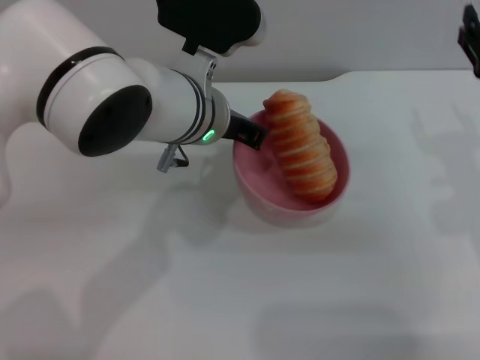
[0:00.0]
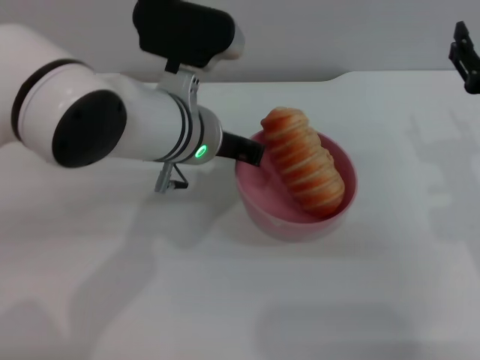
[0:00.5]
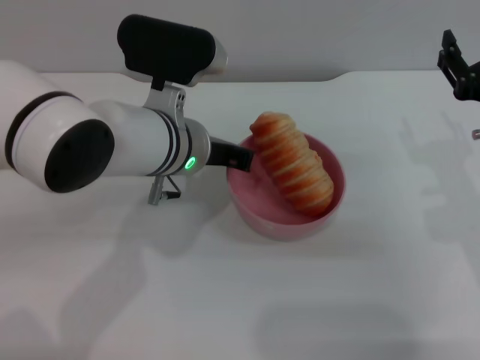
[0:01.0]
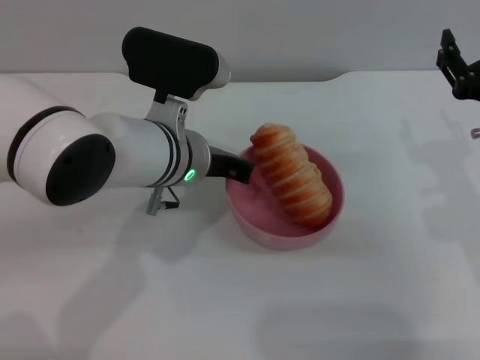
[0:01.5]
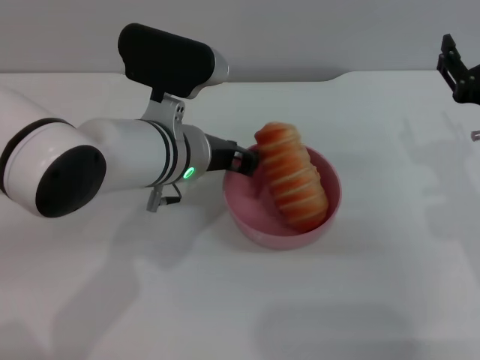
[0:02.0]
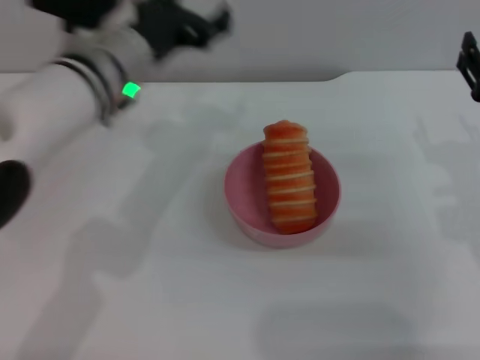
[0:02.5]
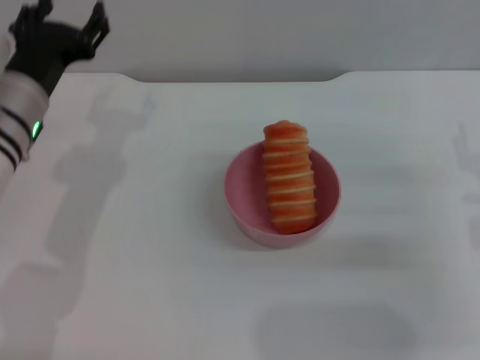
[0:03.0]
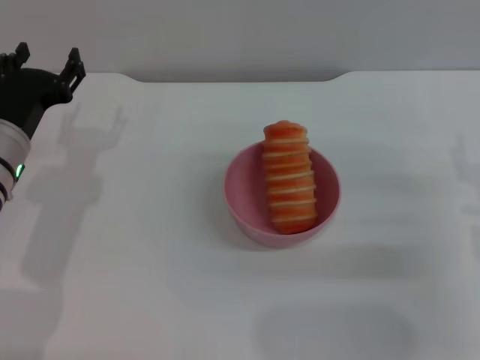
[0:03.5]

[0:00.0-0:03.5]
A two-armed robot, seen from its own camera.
Task of the whole recording: put the bread into the pink bowl and pour it out repeatedly.
Step, 0:01.0 to 0:02.0: Place the bowl on the table.
0:02.0 to 0:03.5: The right gripper shifts by about 5 cm; the left gripper moves to the left, roughly 15 cm, and opens its fingers.

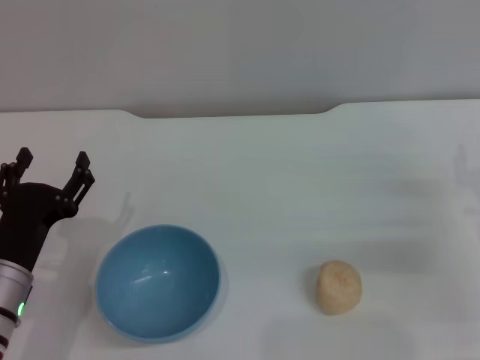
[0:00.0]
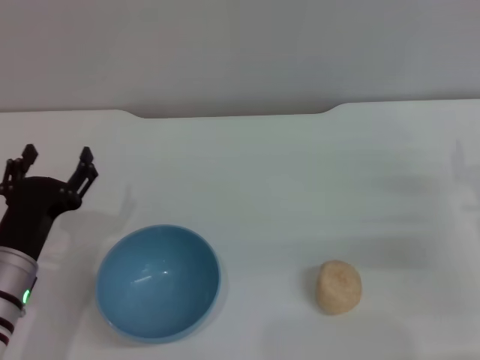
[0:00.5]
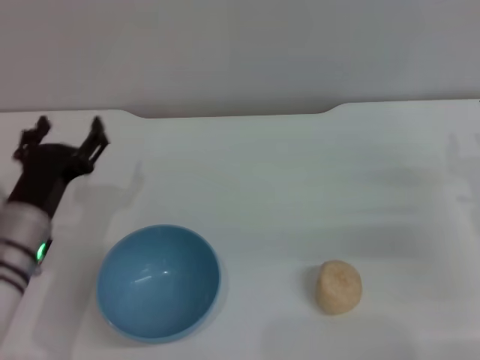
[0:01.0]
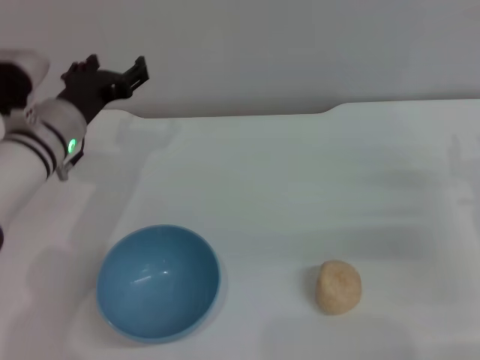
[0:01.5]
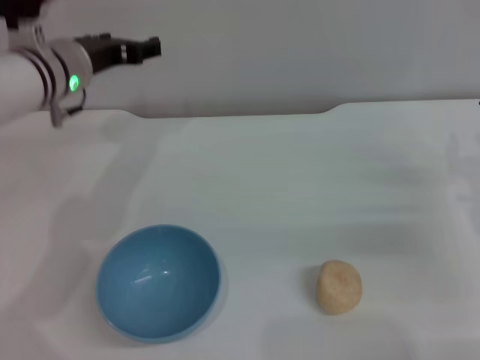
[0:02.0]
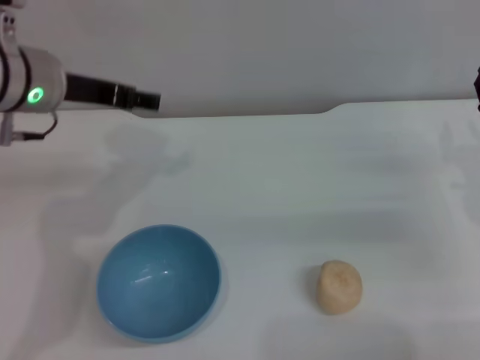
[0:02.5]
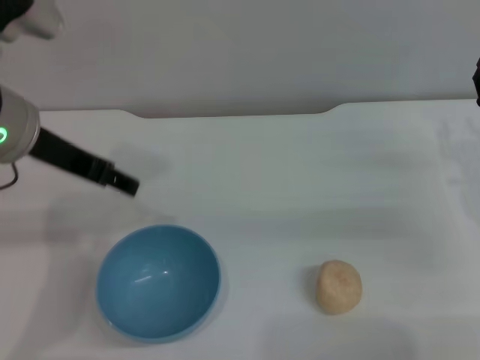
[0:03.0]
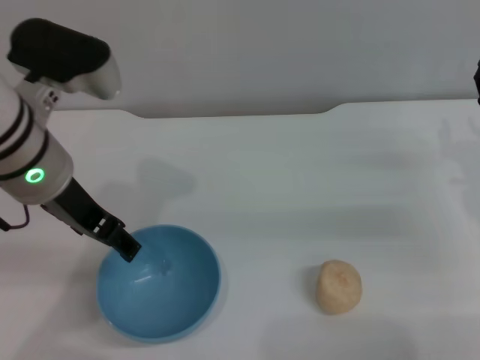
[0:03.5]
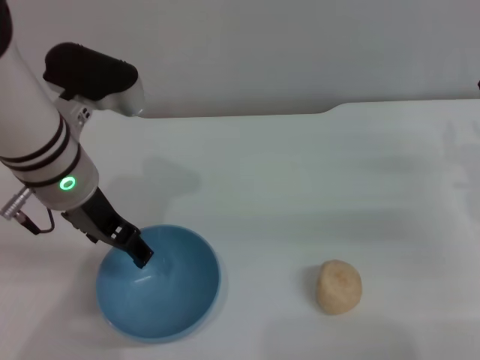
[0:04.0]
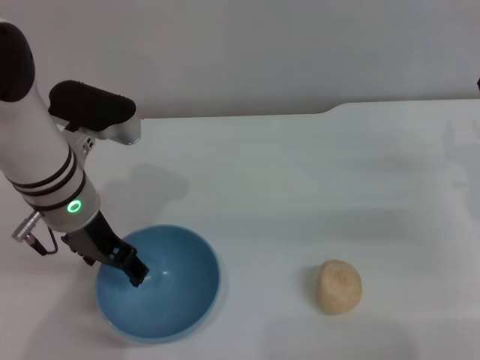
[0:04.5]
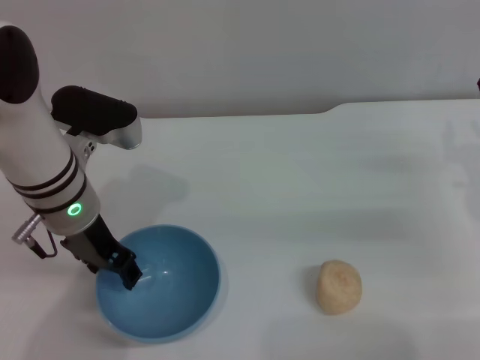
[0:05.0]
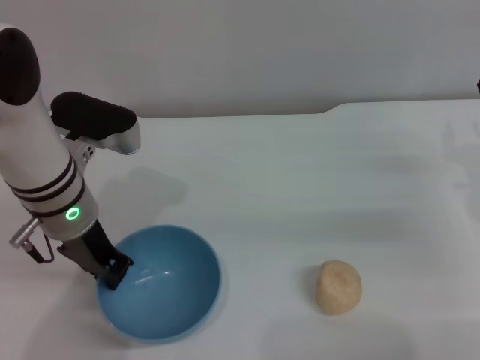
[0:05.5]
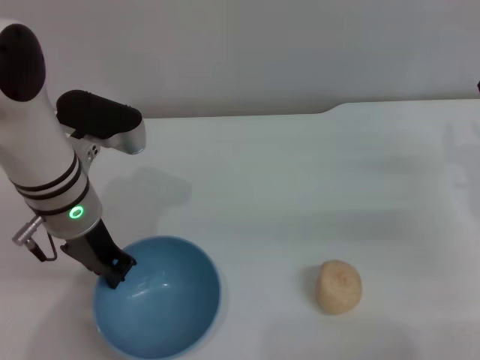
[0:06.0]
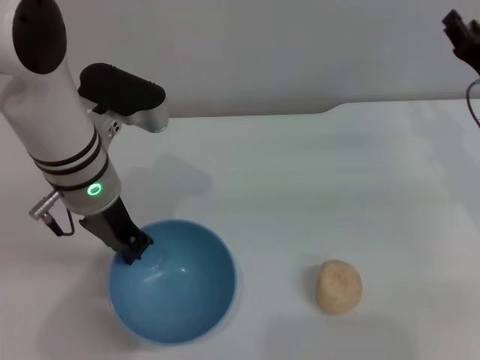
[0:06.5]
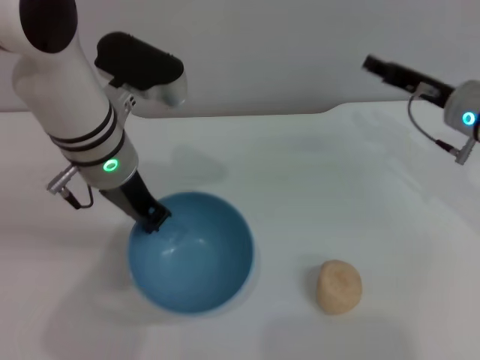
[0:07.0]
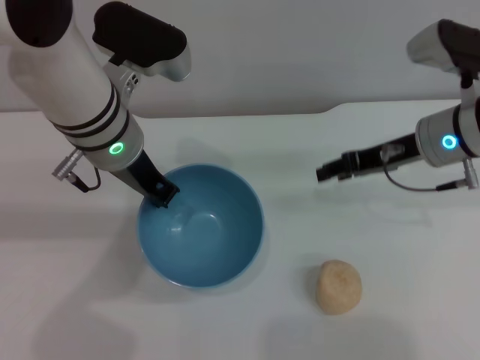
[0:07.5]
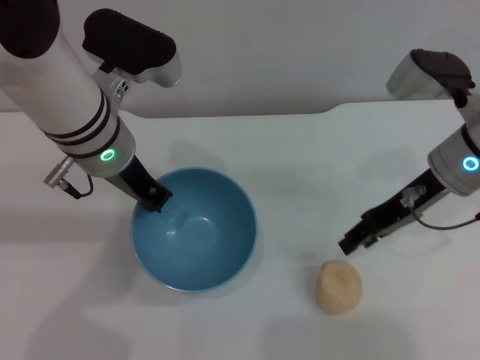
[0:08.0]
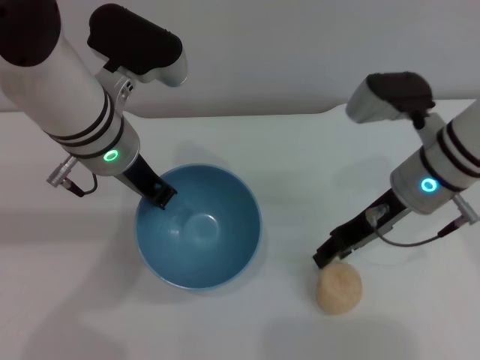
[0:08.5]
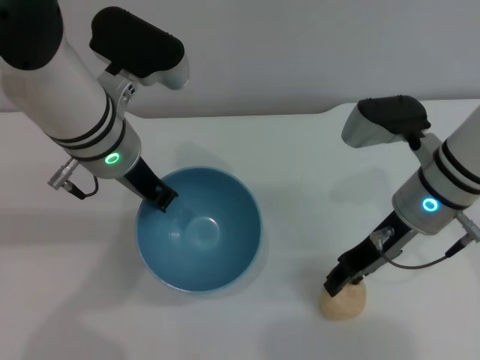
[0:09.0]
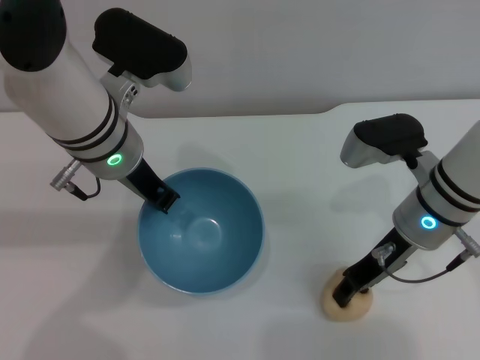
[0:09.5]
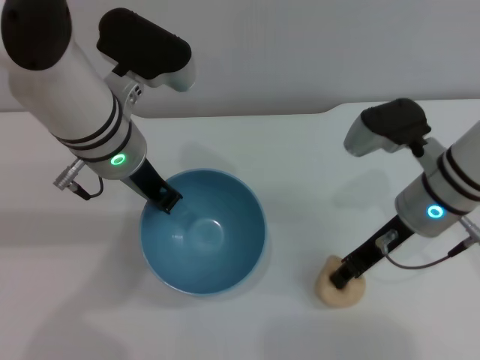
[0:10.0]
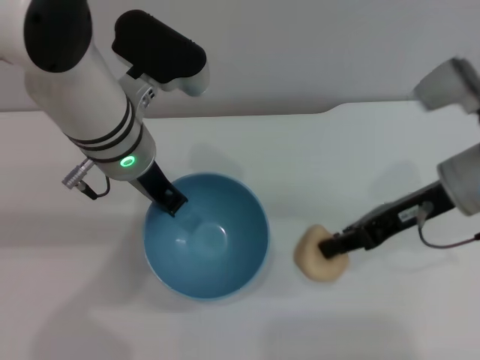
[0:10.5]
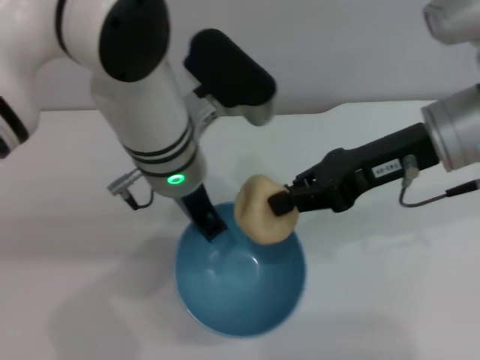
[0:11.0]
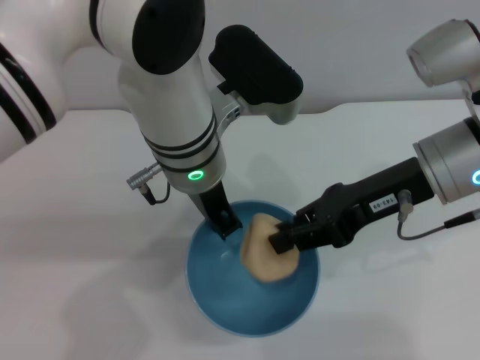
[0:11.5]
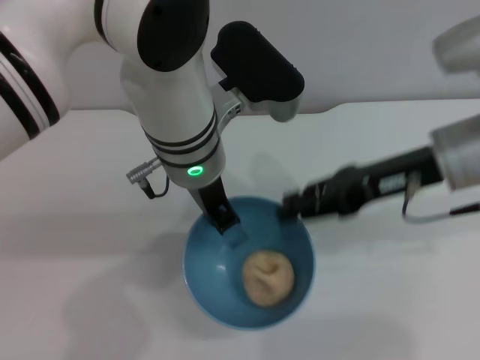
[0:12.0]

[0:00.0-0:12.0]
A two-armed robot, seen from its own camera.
Task of the whole recording: put the egg yolk pastry into the blue bowl and pour it out repeatedly.
Step, 0:00.0 to 0:06.5: Pick up the bowl with the left gripper.
Step, 0:07.0 to 0:10.0: Pick up the egg yolk pastry with the right gripper.
Step, 0:11.0 to 0:12.0: Place the egg yolk pastry into the bowl.
0:00.0 to 0:02.0: The left gripper is displaced forward and upward by about 25 cm.
0:02.0 to 0:04.0: The left gripper moves backward, roughly 10 cm.
0:04.0 to 0:06.0: The left gripper closes up.
0:06.0 to 0:08.0: The left gripper is displaced upward by about 5 cm; the right gripper is displaced to the left and upward by some 10 cm.
0:08.0 to 0:10.0: The right gripper closes its fingers.
0:10.0 to 0:12.0: The left gripper travels to the right by some 10 cm. Meanwhile the right gripper shifts about 5 cm upward.

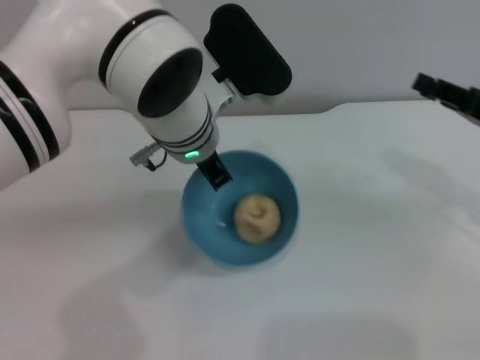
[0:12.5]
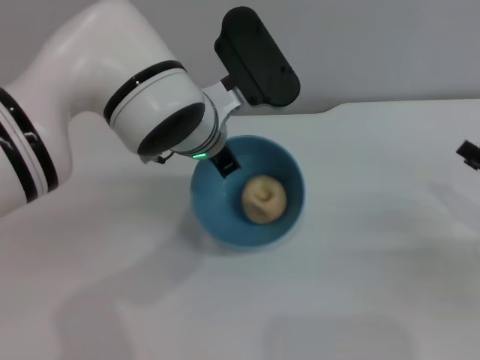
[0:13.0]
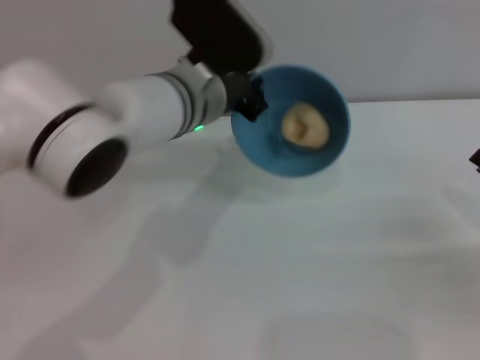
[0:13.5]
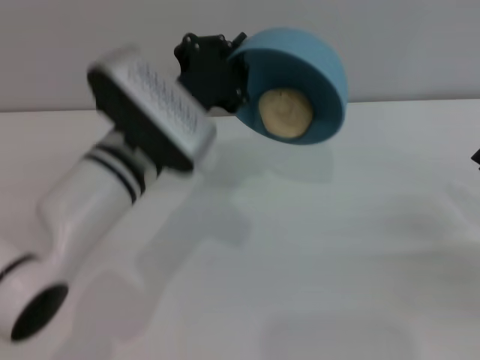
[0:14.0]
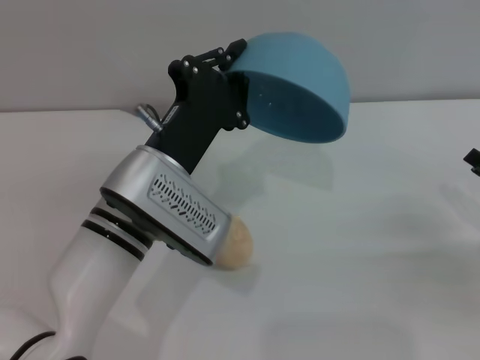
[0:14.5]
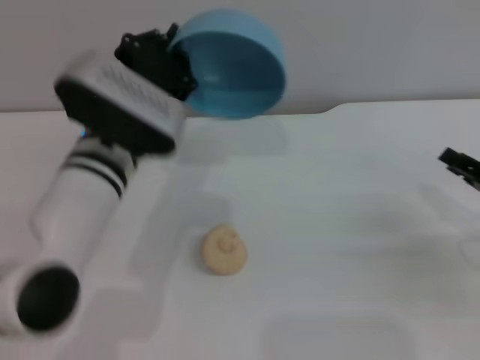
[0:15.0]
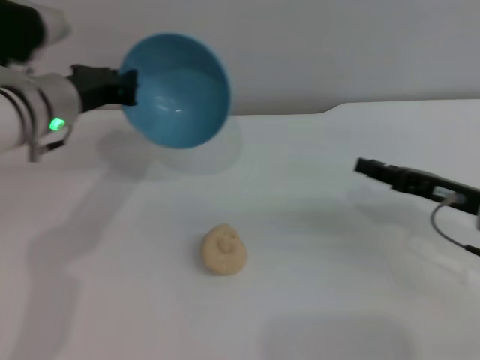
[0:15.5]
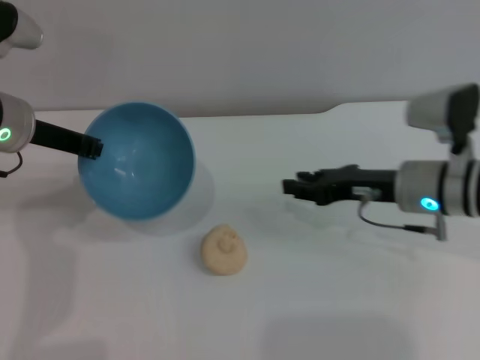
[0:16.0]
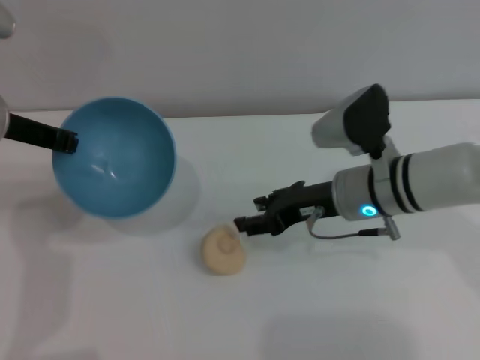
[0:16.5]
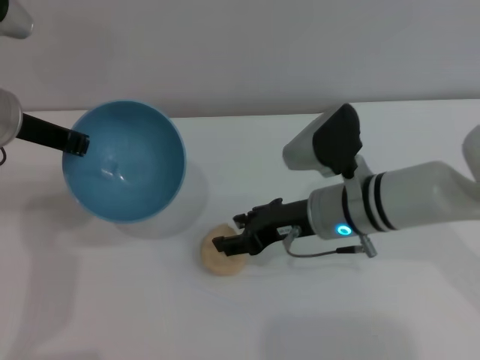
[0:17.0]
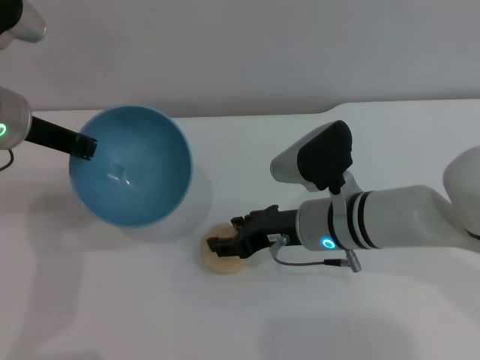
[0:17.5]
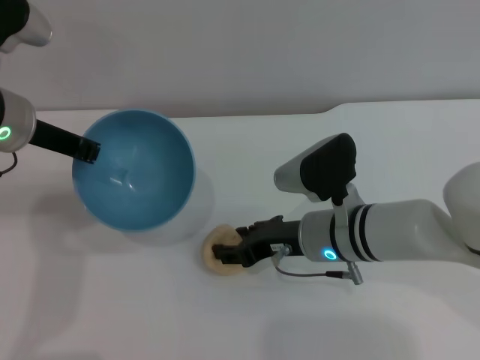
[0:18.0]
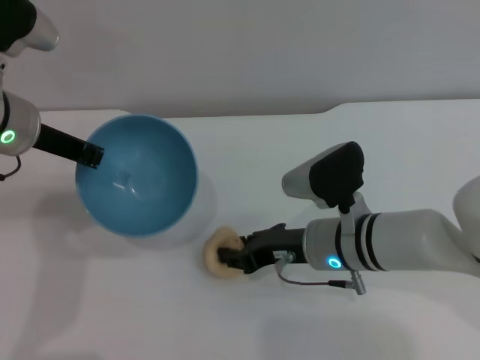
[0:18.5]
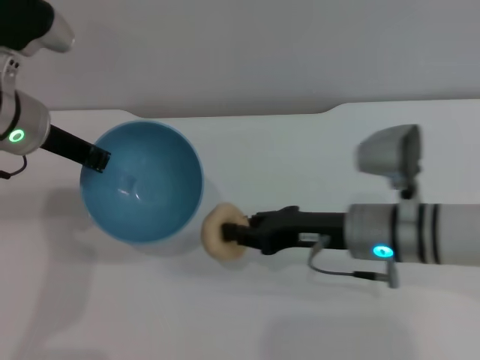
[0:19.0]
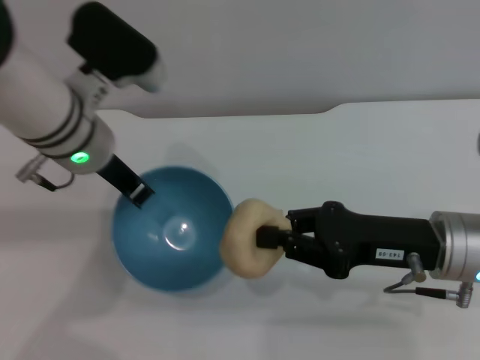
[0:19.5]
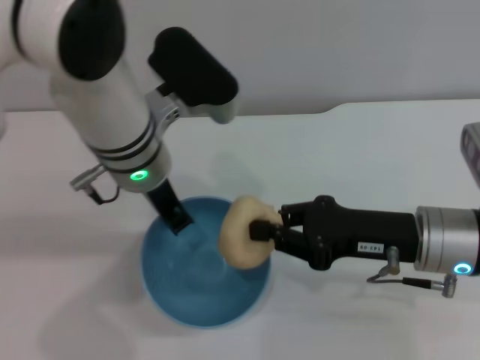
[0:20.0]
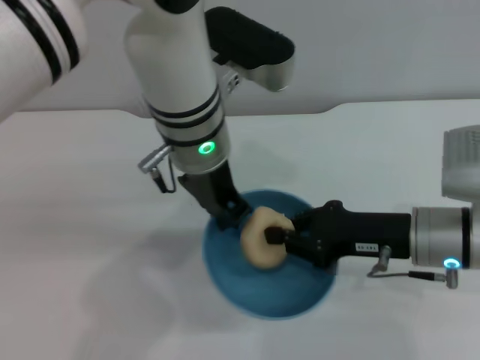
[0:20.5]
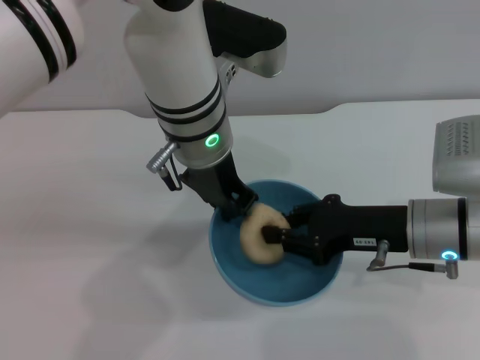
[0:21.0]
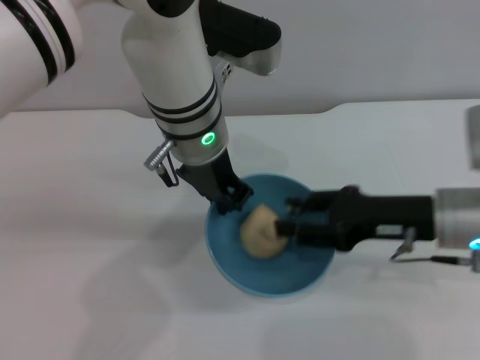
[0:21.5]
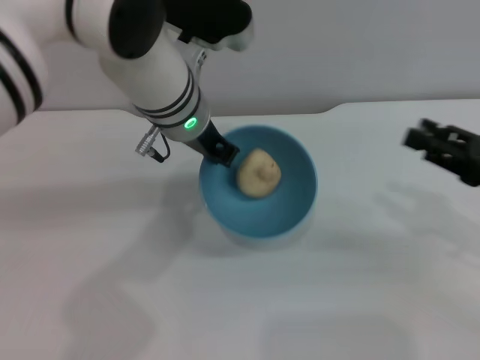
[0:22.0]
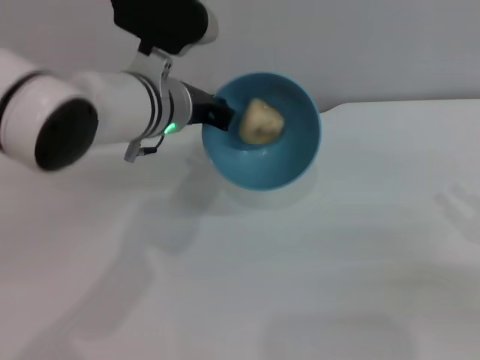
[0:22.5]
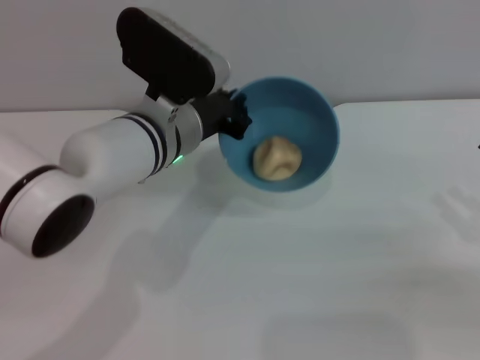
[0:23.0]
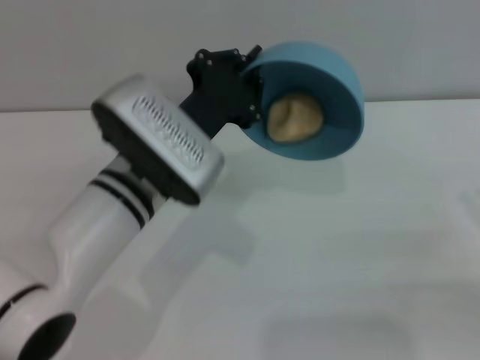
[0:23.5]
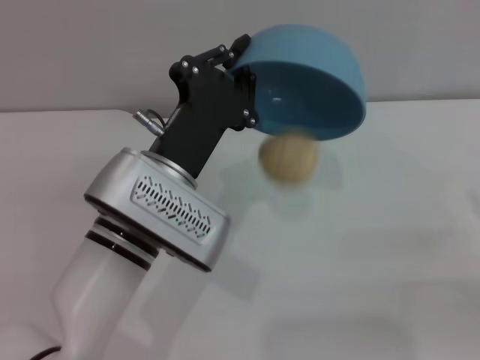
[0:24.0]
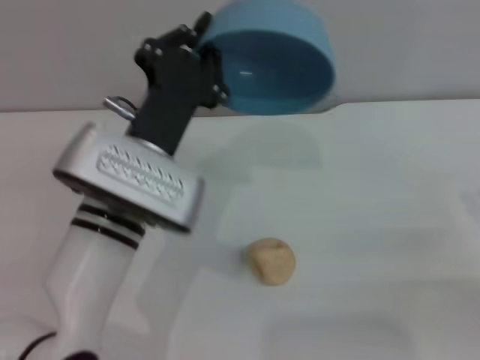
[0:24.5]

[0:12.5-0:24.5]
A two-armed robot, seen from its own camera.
Task of the whole recording: put the egg yolk pastry into the blue bowl and pour it out repeatedly.
Step, 0:12.5 to 0:14.5: Pour the egg yolk pastry out of bowl.
Step, 0:15.0 to 0:19.0: Pick up the egg yolk pastry with the right gripper.
Step, 0:19.5 to 0:21.5: Place the egg yolk pastry into the bowl.
Step, 0:22.0 to 0:24.0: Pour the egg yolk pastry out of bowl.
0:12.5 to 0:14.5: The left gripper goes some 10 cm backward and downward, while the right gripper travels downward and backward by about 10 cm.
0:14.5 to 0:16.5: The right gripper goes some 25 cm to the left and forward, while the left gripper is displaced to the left, forward and upward by some 20 cm.
0:16.5 to 0:18.5: The right gripper moves about 5 cm.
0:18.5 to 0:20.5: The left gripper moves to the right, about 20 cm. The right gripper shifts about 10 cm to the right, and closes.
0:20.5 to 0:22.5: The right gripper travels to the right by approximately 15 cm, and opens. Meanwhile the left gripper moves roughly 5 cm.
0:22.5 to 0:24.5: The left gripper travels backward by some 10 cm.
